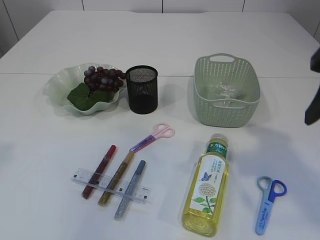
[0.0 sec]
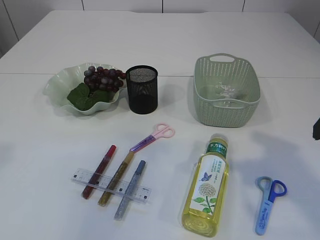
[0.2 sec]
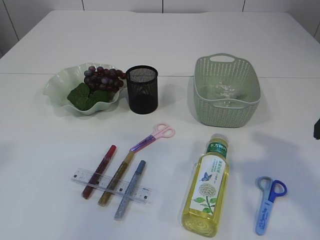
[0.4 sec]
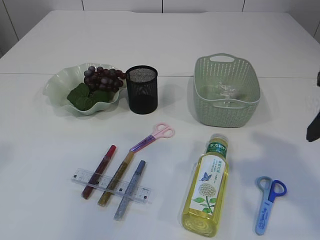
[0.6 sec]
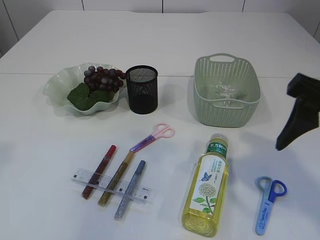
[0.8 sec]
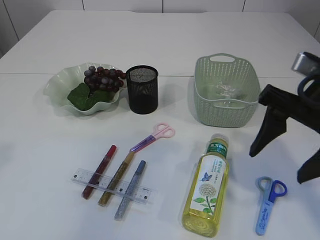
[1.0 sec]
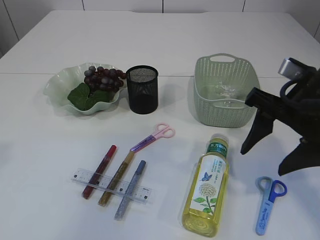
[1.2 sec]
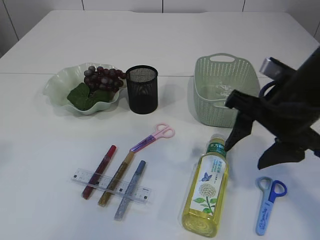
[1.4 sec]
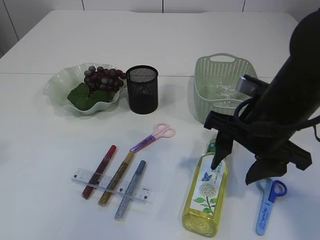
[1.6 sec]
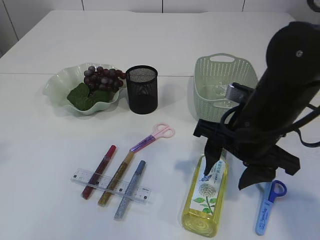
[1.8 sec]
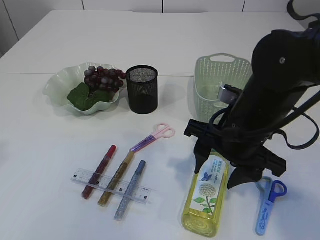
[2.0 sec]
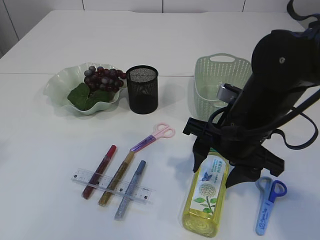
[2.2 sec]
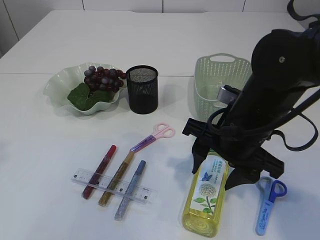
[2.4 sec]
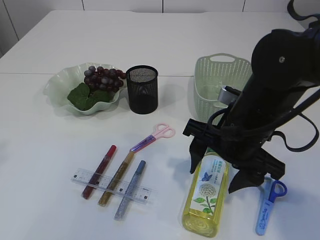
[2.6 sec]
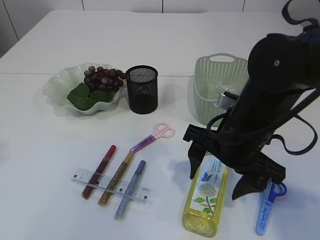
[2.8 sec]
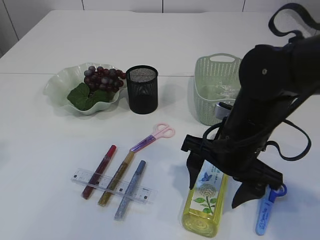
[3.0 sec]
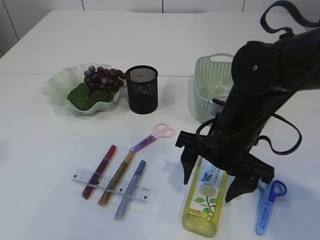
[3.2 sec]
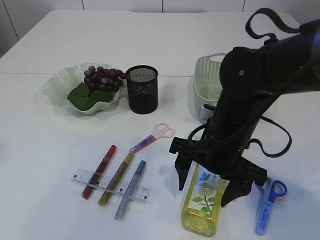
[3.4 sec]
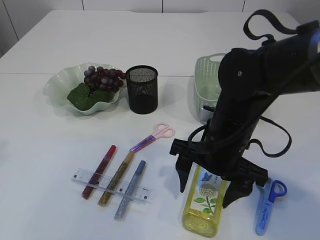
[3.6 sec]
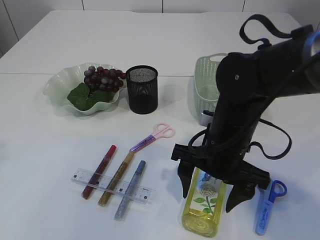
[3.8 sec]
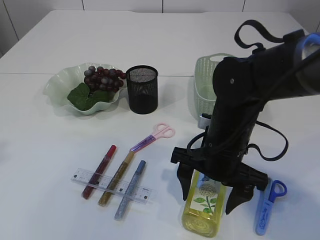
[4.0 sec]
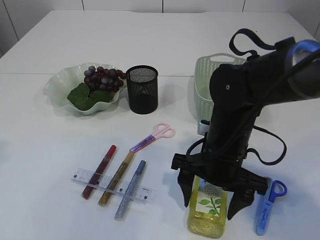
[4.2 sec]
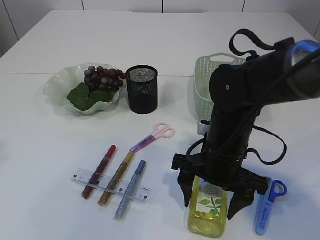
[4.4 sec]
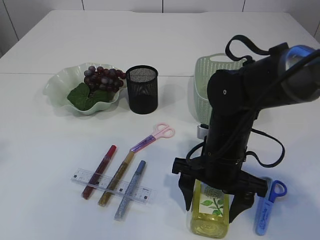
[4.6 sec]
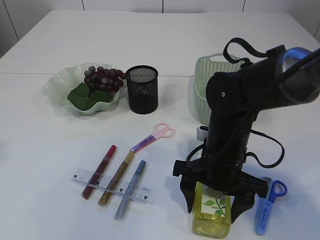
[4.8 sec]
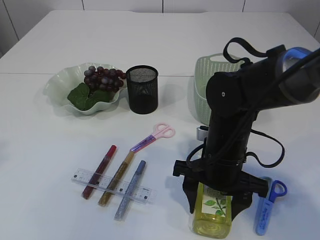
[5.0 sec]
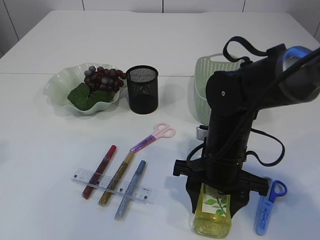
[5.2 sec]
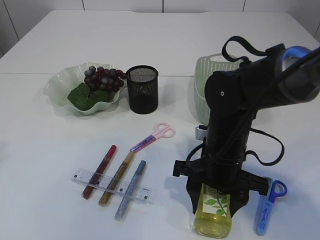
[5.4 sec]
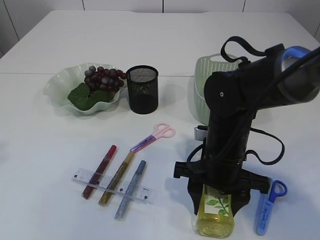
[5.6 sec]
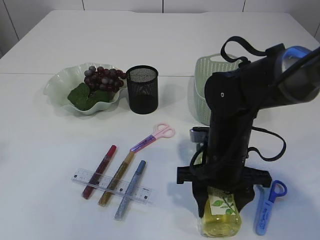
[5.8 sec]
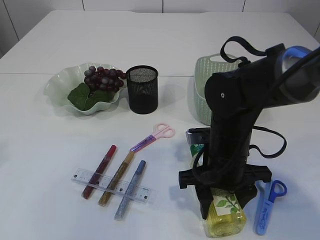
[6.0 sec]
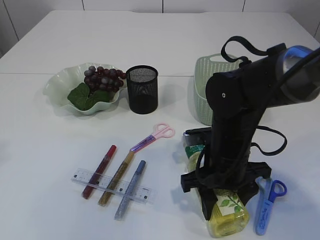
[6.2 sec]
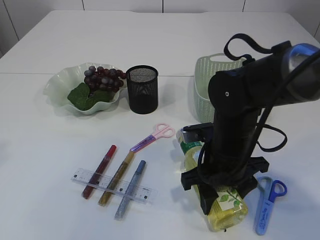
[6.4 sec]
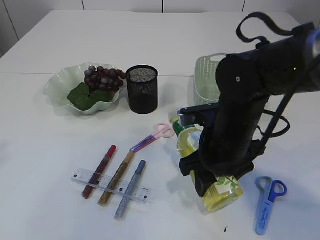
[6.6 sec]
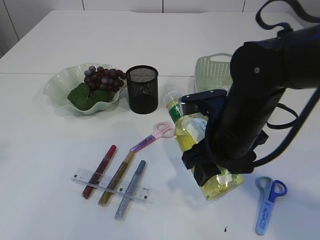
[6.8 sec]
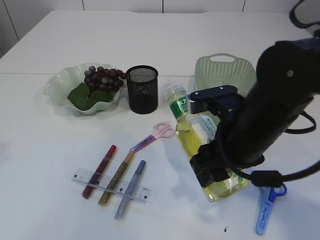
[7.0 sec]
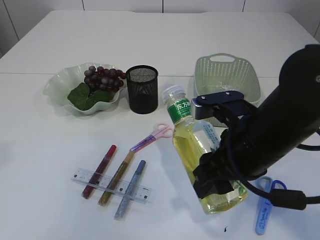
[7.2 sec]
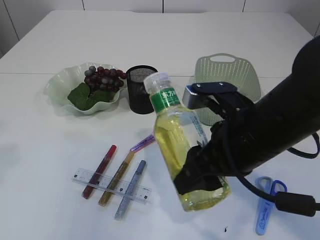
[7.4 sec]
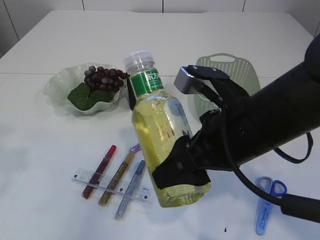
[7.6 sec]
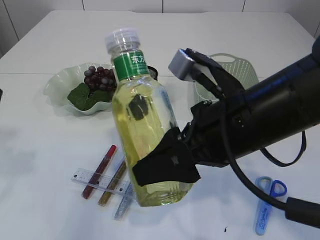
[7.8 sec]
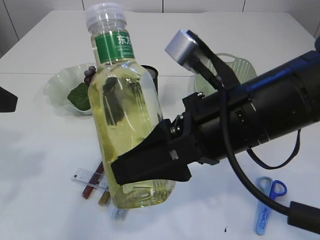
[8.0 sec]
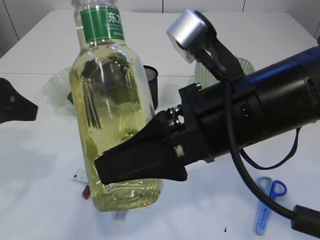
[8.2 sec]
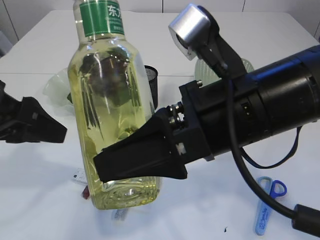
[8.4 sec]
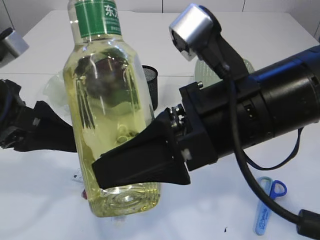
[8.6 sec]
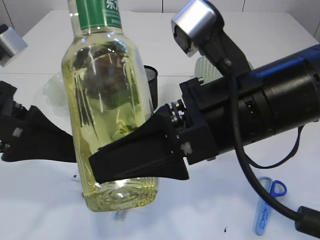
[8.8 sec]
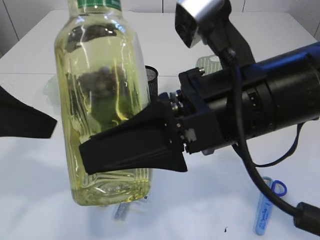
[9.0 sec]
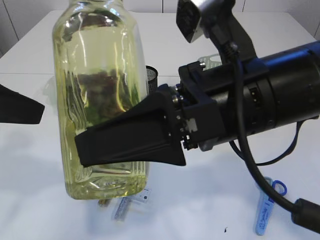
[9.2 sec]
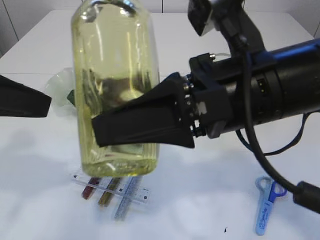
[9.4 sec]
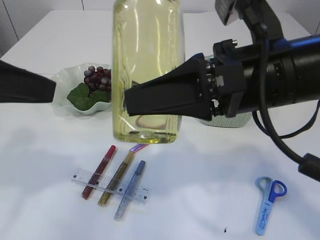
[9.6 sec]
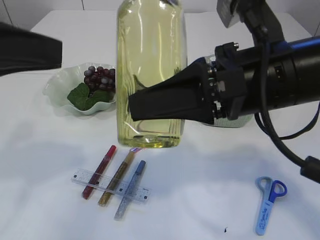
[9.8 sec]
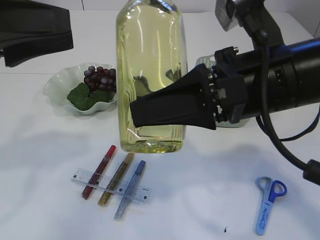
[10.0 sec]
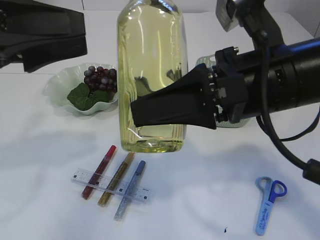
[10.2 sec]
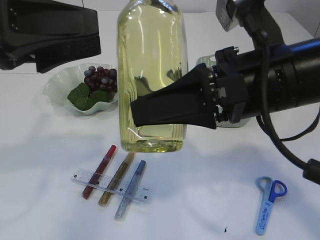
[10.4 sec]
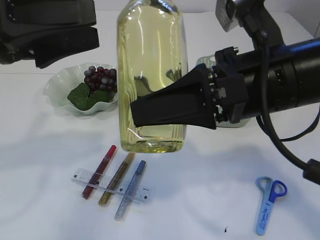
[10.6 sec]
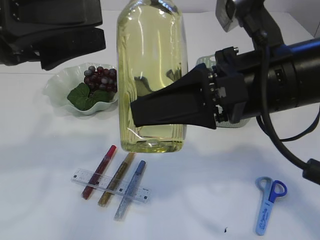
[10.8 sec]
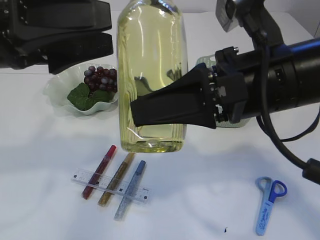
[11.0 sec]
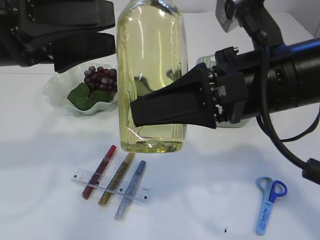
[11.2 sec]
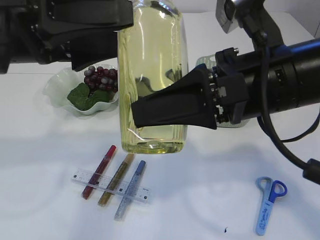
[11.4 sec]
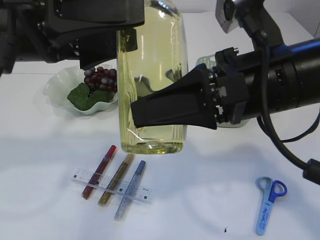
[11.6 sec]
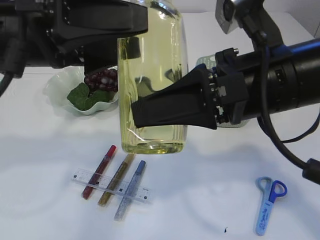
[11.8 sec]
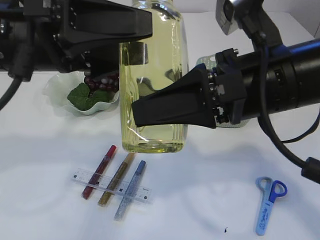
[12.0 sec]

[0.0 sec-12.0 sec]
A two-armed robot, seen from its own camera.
0.0 sec to 1.6 sec: The right gripper moves downward, to the left and forward, roughly 15 cm.
1.6 sec to 3.0 sec: The right gripper ends up roughly 5 cm from where it was.
3.0 sec to 4.4 sec: The grippers move only a little.
4.4 sec to 6.0 sec: The right gripper closes up.
6.0 sec to 7.6 sec: The right gripper travels upward and backward by about 15 cm. Meanwhile the left gripper travels downward by about 5 cm.
7.6 sec to 9.0 sec: The right gripper moves upward, approximately 5 cm. The left gripper goes some 5 cm downward.
9.0 sec to 10.4 sec: The left gripper changes place by some 5 cm.
10.4 sec to 12.0 sec: The left gripper moves to the right, roughly 5 cm.

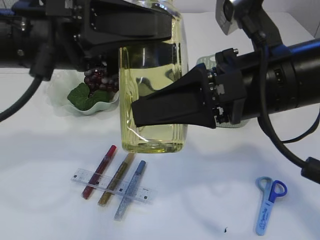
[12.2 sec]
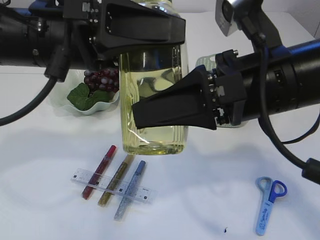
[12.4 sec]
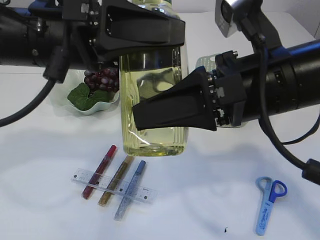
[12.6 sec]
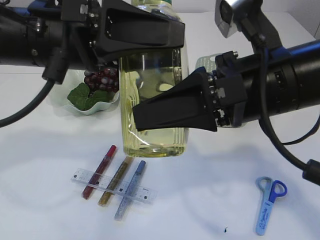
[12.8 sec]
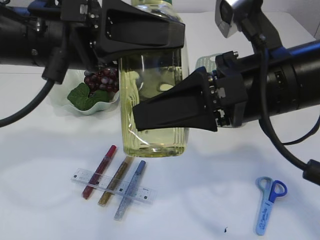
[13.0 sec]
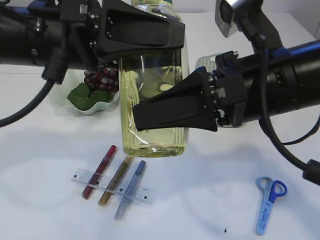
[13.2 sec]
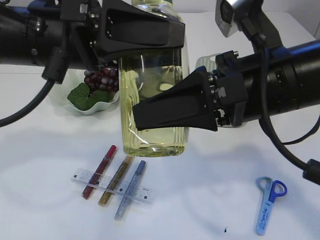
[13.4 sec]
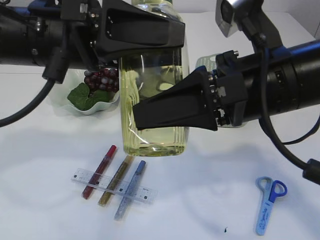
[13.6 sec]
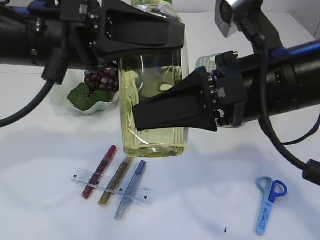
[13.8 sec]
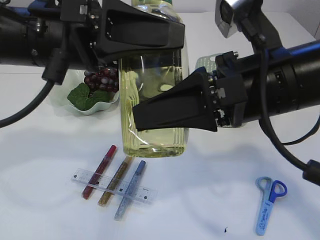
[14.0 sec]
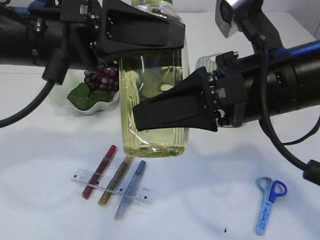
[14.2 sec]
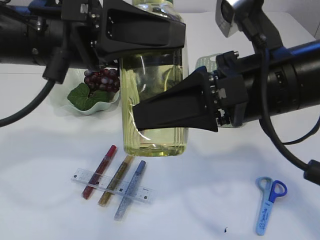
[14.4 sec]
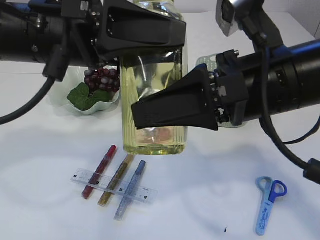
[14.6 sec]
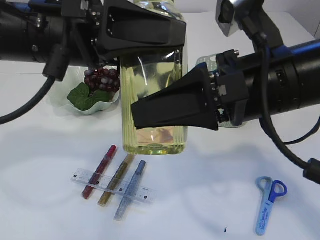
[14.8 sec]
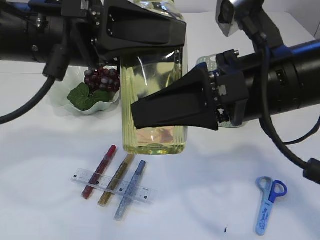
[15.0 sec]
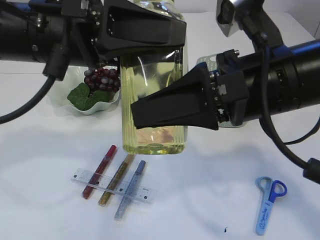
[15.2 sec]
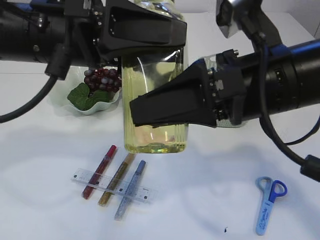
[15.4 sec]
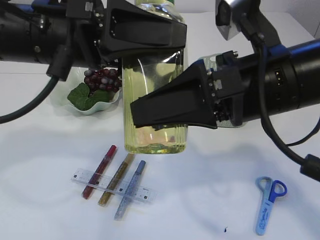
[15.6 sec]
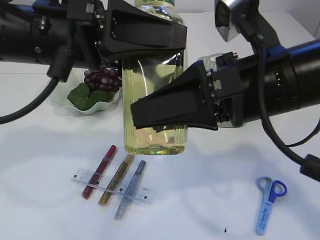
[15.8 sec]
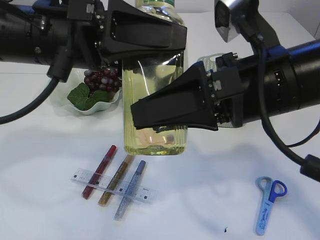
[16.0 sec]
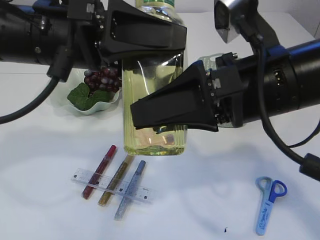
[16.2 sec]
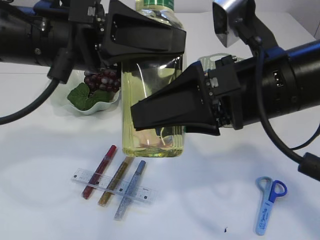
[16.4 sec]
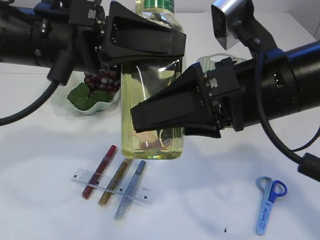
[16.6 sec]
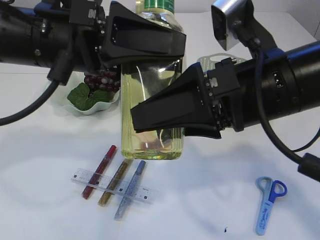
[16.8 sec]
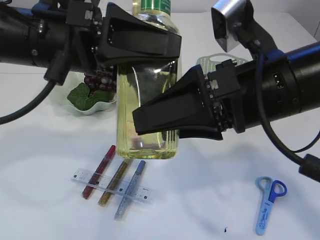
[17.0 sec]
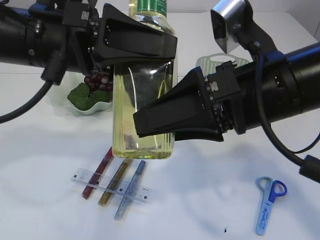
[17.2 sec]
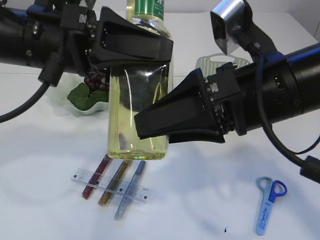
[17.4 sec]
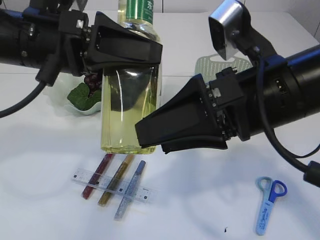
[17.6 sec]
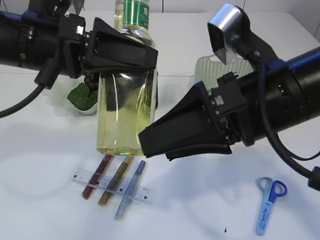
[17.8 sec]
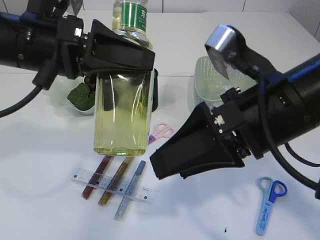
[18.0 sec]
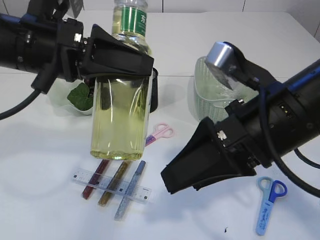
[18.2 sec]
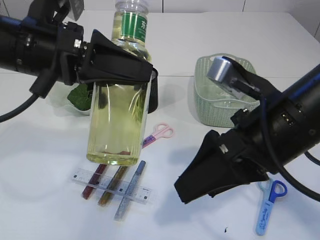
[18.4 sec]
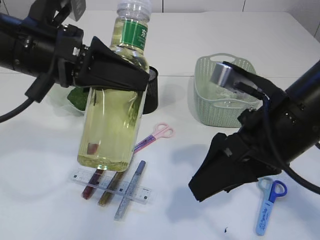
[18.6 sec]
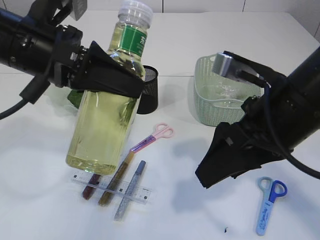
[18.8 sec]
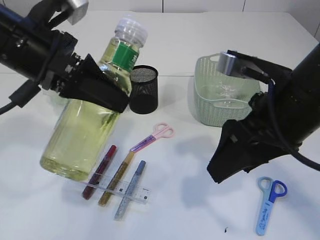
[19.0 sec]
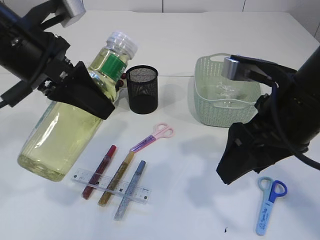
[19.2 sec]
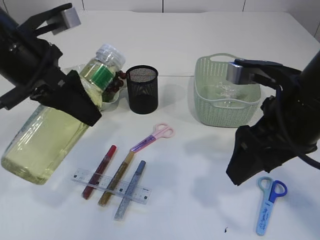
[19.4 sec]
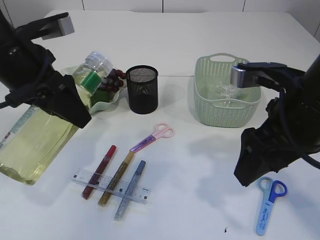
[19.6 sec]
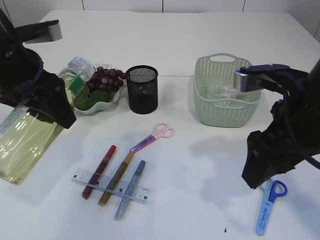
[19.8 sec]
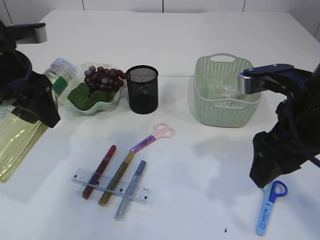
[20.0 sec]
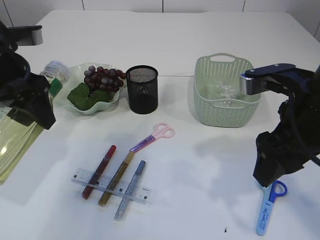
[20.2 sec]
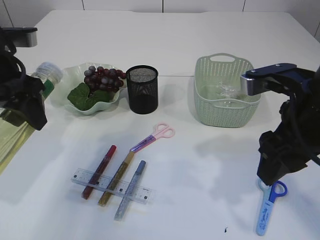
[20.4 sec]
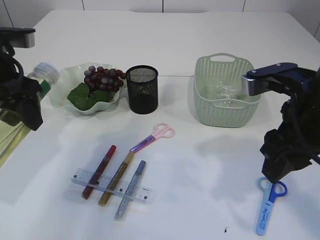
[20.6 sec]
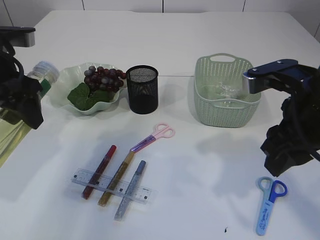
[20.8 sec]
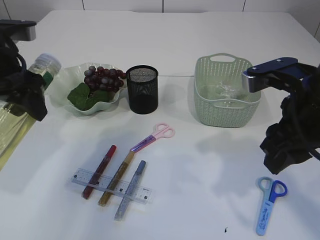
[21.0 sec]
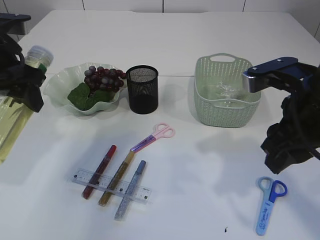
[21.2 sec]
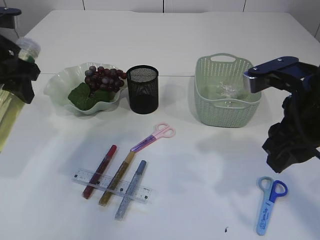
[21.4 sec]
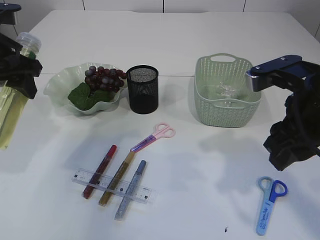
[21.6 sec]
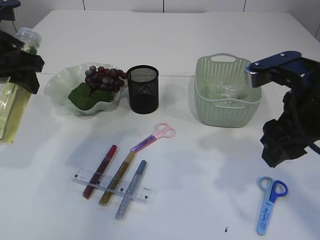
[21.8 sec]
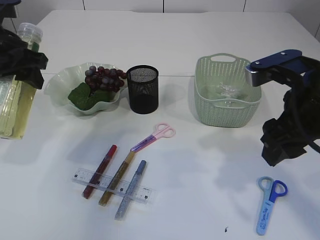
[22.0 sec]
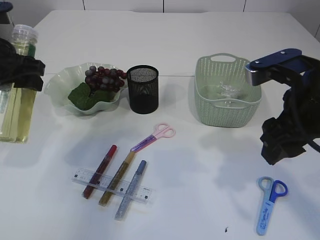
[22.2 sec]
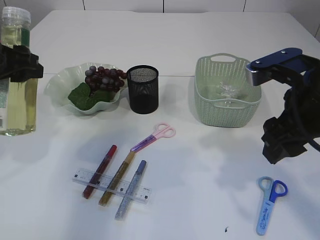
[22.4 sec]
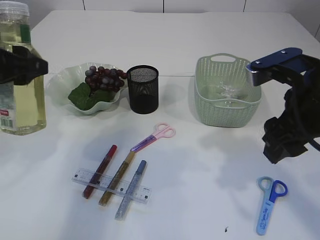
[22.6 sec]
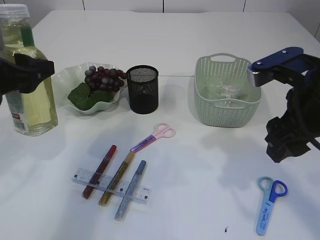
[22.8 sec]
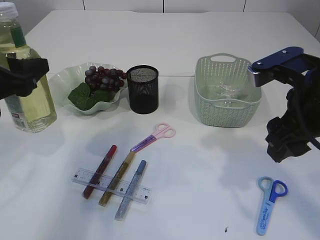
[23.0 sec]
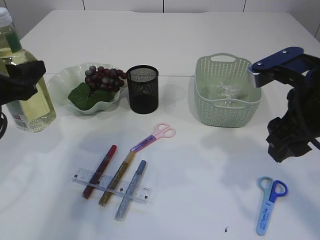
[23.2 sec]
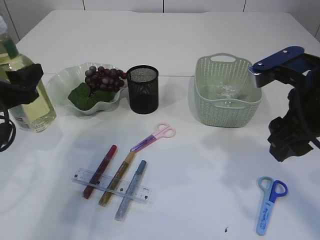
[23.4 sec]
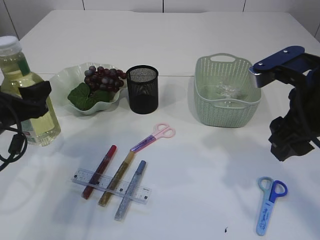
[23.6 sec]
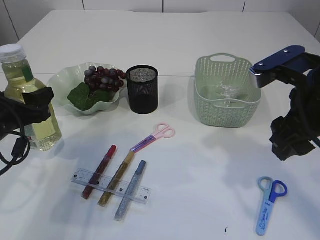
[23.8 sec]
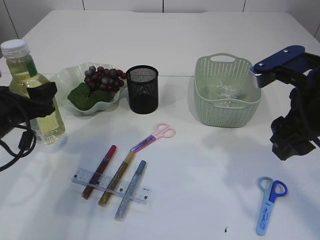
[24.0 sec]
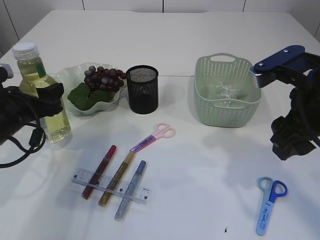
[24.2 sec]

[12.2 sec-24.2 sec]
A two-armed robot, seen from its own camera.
Step, 12.2 sec to 18.0 sec: transfer the bottle to the left arm.
12.2 sec to 13.8 sec: The two grippers keep their place.
13.8 sec to 15.2 sec: Both grippers stay put.
15.2 sec to 16.6 sec: The grippers make only small movements.
18.2 sec to 19.8 sec: The left gripper is displaced to the left by some 5 cm; the right gripper moves some 5 cm.
19.8 sec to 21.2 sec: The right gripper closes.
21.2 sec to 22.6 sec: The right gripper opens.
22.6 sec to 24.2 sec: The left gripper shifts approximately 10 cm downward.
